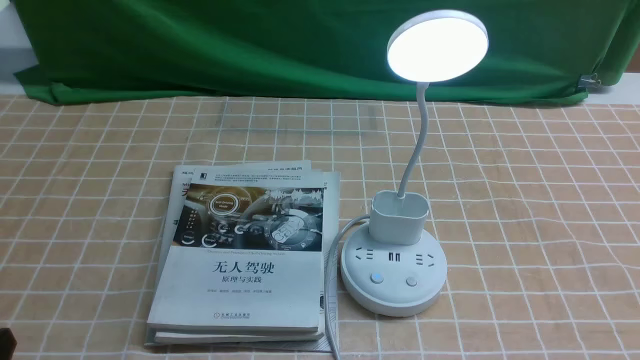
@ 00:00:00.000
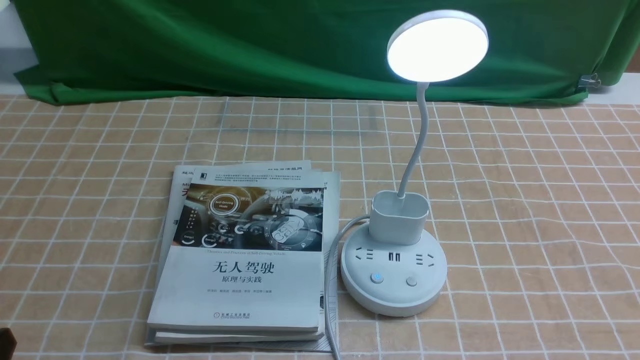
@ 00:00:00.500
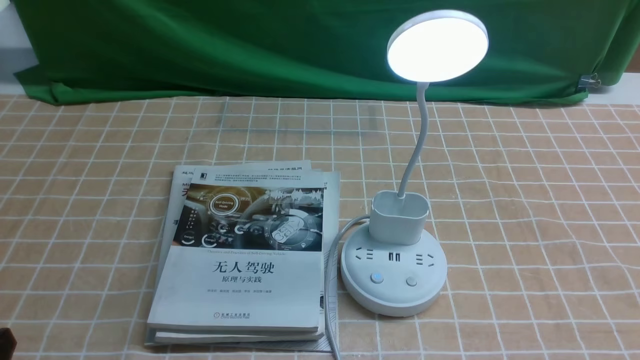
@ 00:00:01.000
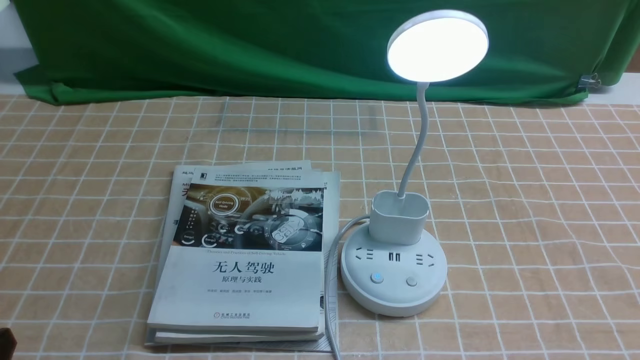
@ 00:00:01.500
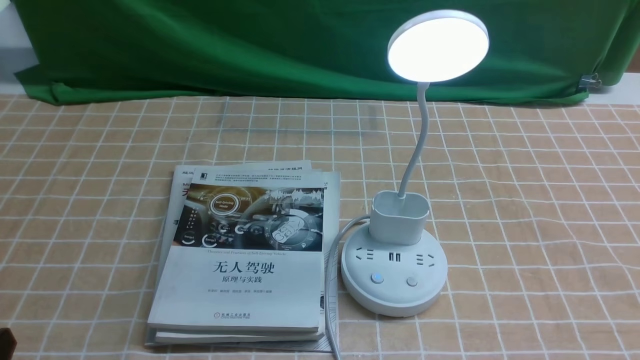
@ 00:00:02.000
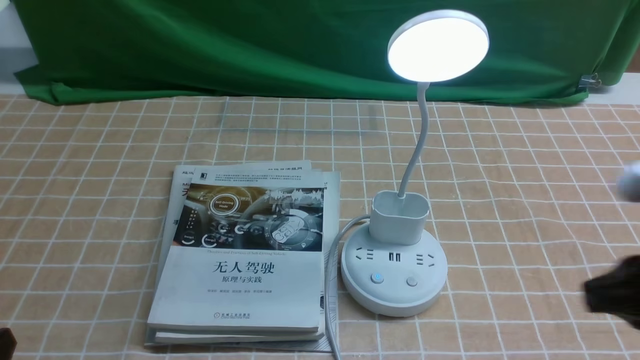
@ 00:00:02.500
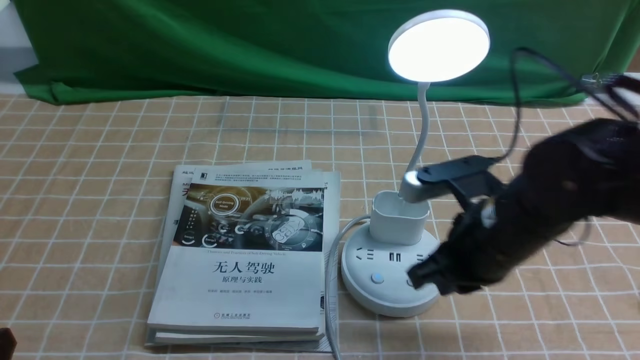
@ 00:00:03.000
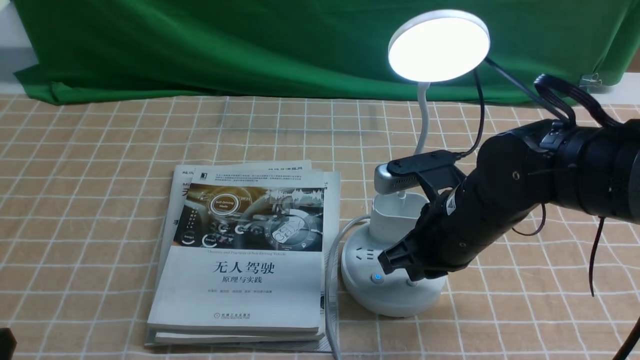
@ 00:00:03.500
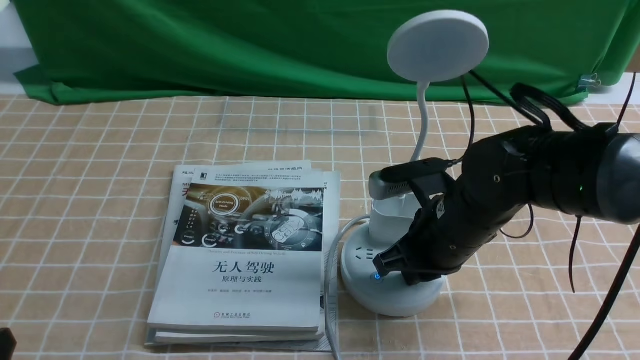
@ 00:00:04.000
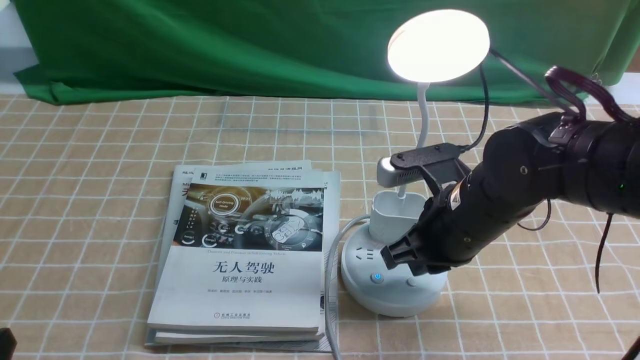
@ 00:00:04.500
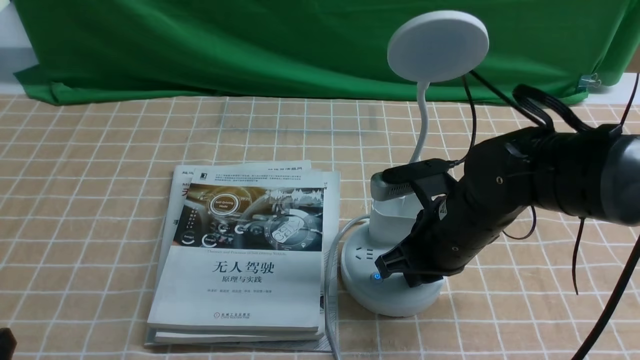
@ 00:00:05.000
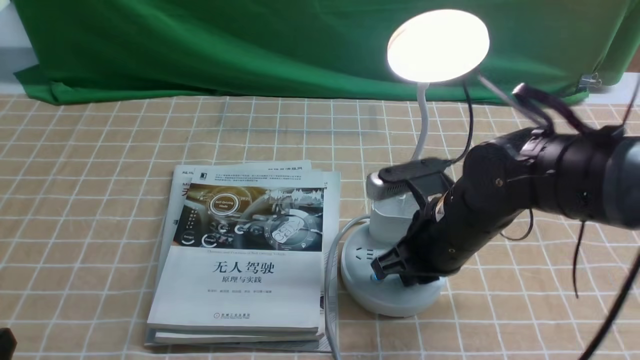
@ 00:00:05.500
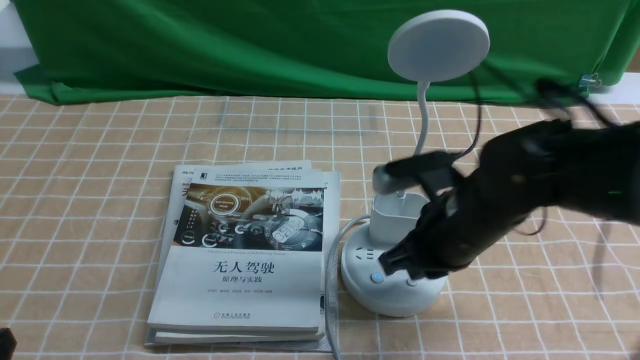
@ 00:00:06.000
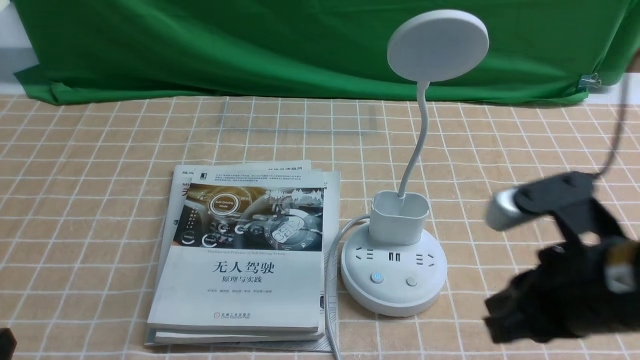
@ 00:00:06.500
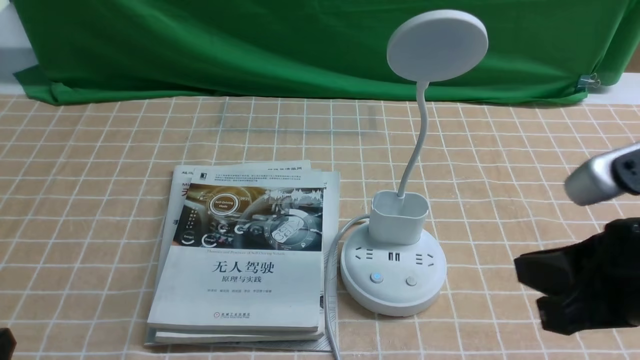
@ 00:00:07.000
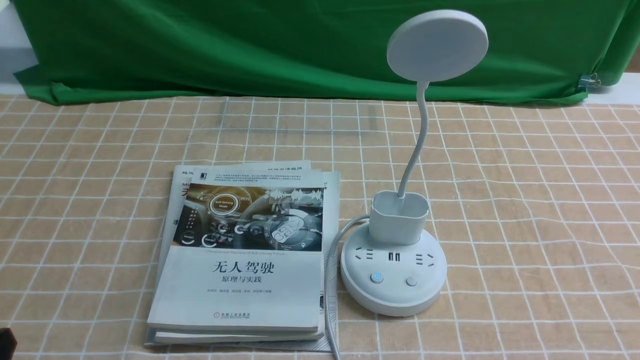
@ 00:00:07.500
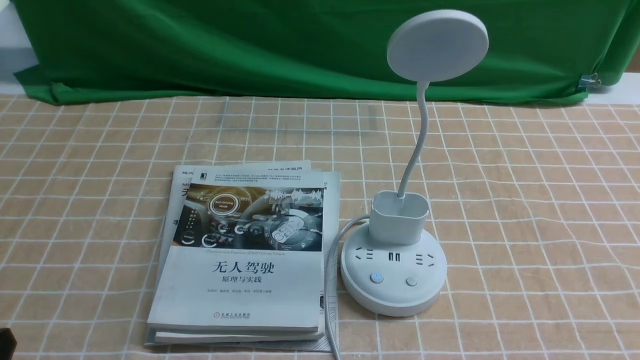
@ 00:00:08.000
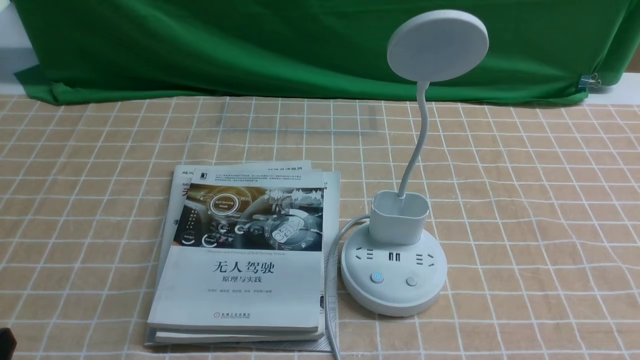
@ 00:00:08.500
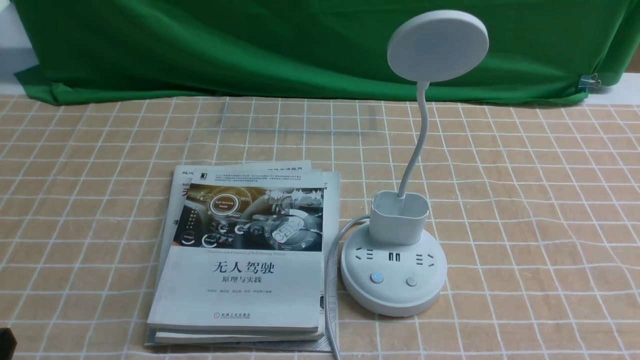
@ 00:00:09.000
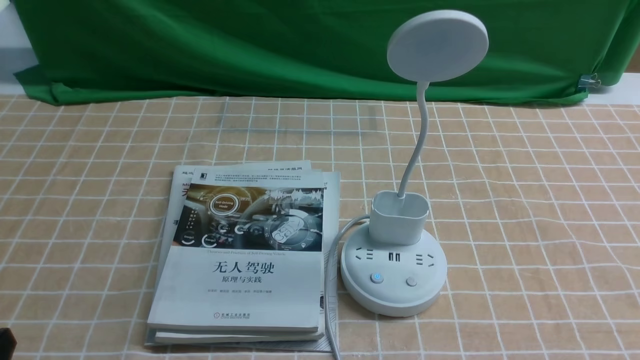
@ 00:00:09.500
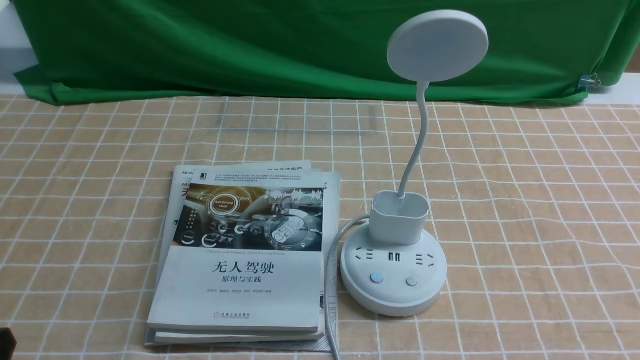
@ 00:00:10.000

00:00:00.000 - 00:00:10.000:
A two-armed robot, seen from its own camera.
Task of the whole recording: turn off the desk lamp on the light coffee tablecloth by hand.
Step, 00:00:00.000 - 00:00:06.000: use the right arm to press the button switch on the lamp holder.
00:00:02.000 - 00:00:04.000: The right gripper heads forward and to the left, covering approximately 30 cm.
00:00:04.000 - 00:00:06.000: The grippers make only small movements.
00:00:06.000 - 00:00:08.000: The right gripper is displaced backward and to the right by about 30 cm.
